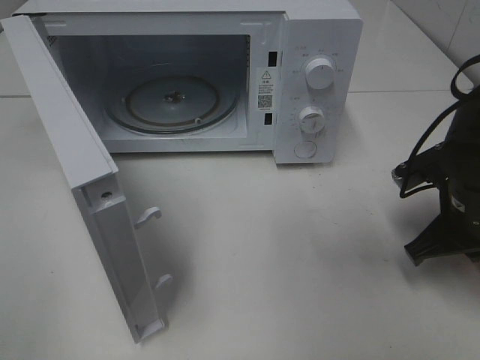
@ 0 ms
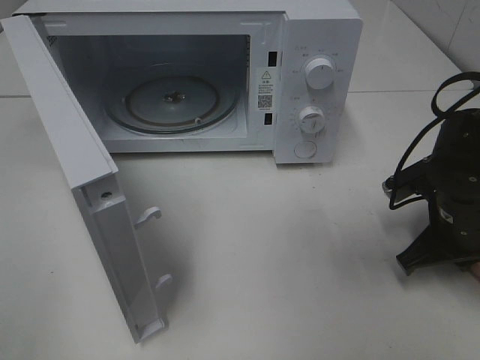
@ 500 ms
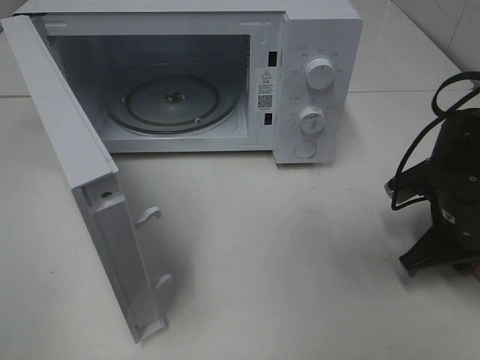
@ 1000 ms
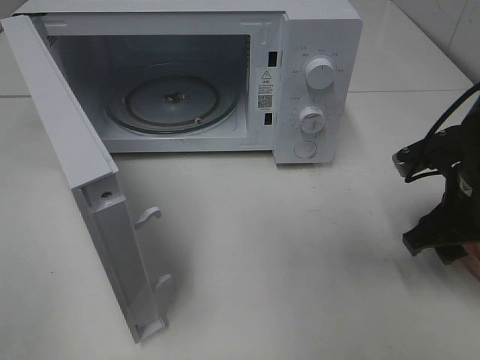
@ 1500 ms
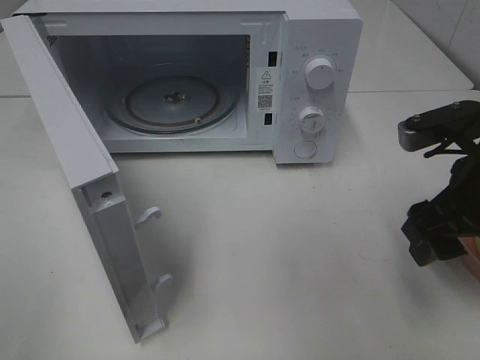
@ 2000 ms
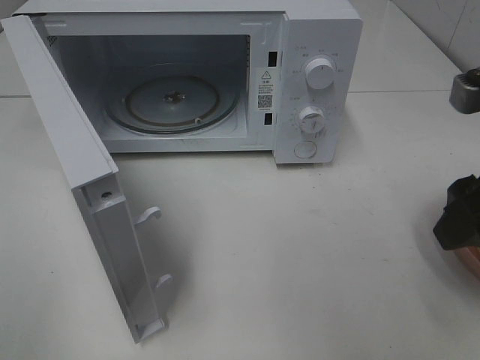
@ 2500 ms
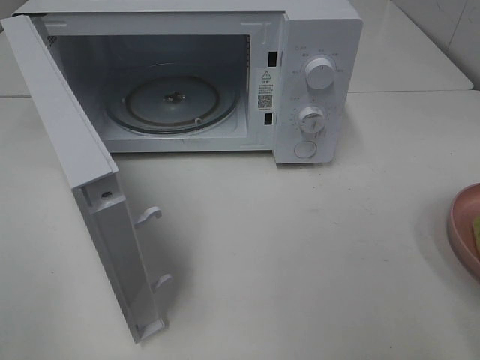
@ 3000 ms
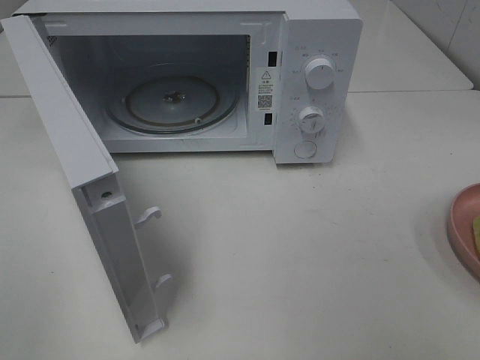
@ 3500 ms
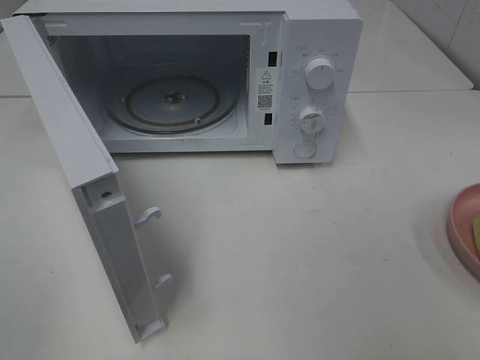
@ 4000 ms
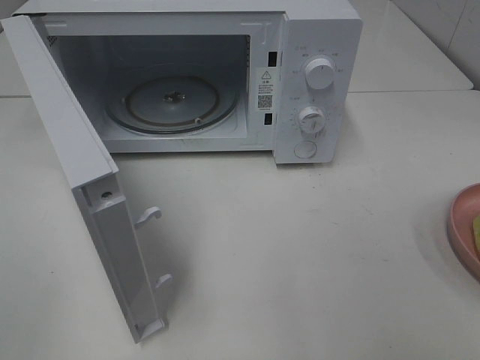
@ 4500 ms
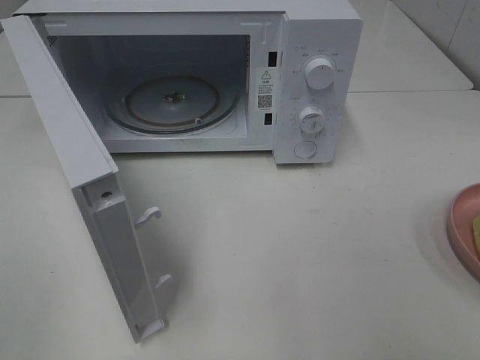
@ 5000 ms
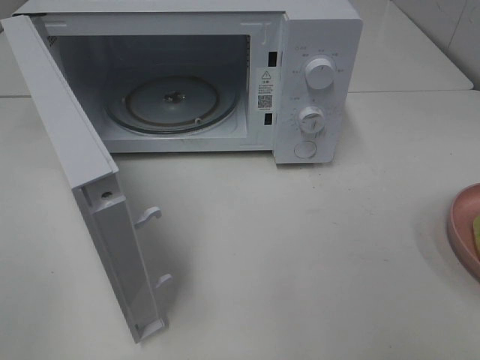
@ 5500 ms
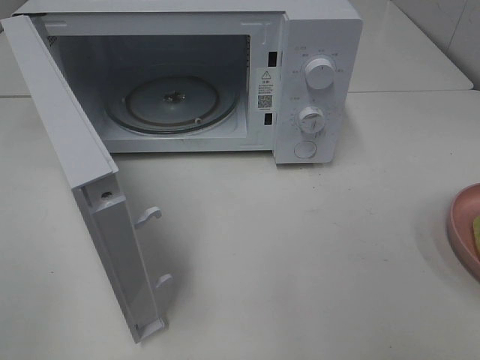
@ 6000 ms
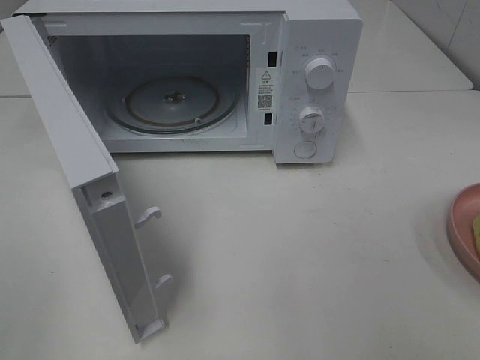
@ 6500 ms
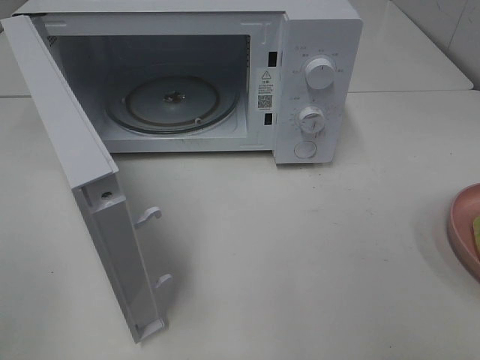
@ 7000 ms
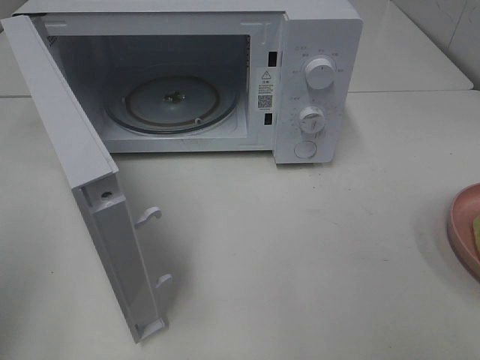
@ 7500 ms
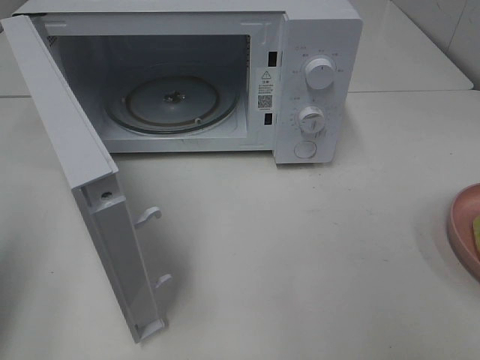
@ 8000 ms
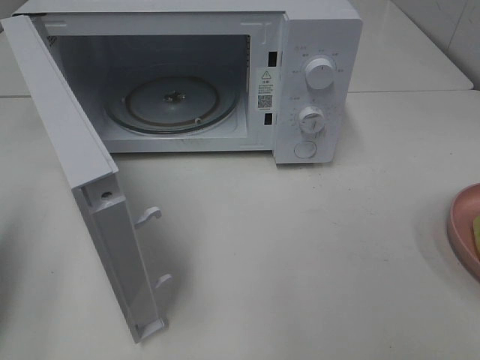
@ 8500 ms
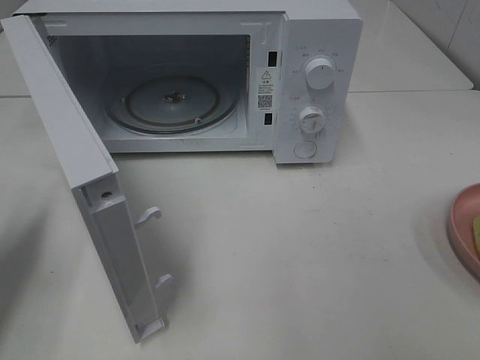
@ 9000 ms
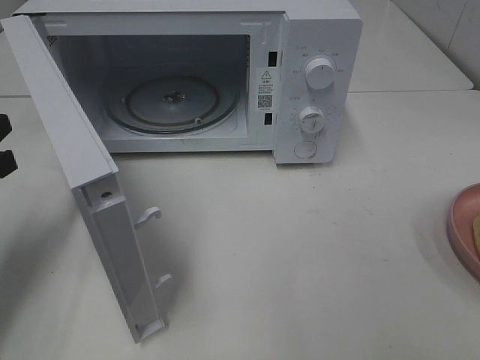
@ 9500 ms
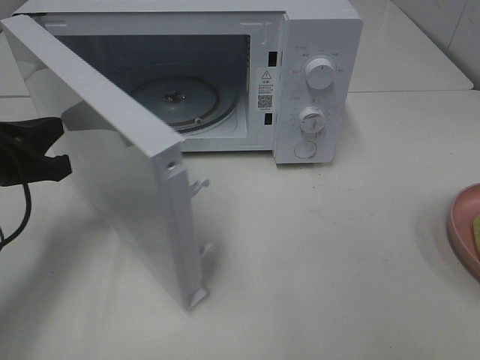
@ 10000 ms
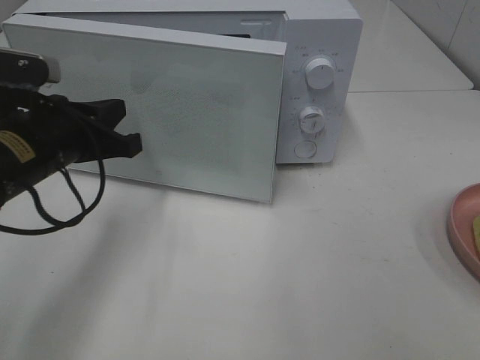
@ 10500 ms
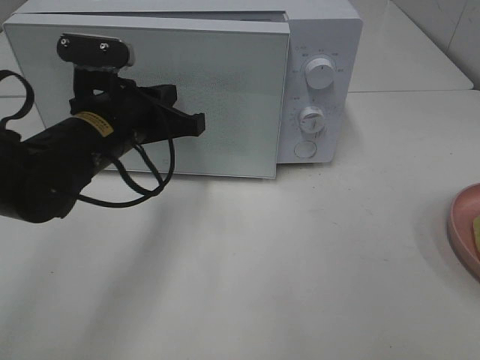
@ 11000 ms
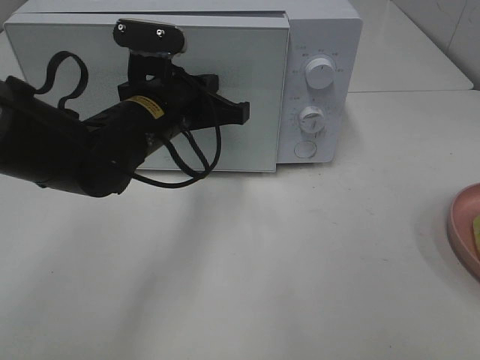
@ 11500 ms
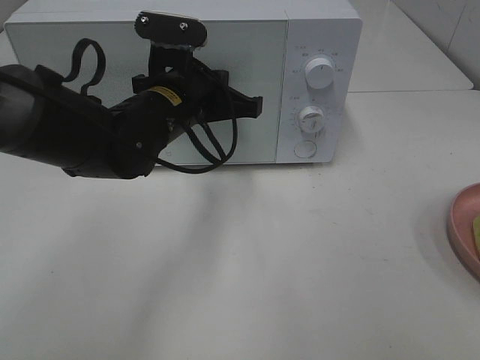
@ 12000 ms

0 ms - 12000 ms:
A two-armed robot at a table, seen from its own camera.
Task of the whole recording: Heat Sandwich.
Step, 0 ms - 2500 ms: Right hand: place the plate on the table.
0 ms - 2000 ms: The right gripper heads upward, covering approximately 10 cm, and opens its fingers.
2000 ms - 4000 ms: The right gripper is displaced backward and upward by roughly 25 cm.
6000 ms - 8000 ms: The left gripper goes roughly 15 cm forward, and closes its fingers.
8000 ms - 10000 ms: The left gripper is displaced forward, downward and to the right by roughly 20 cm.
10000 ms - 12000 ms: The left gripper heads to the right and forward, covering about 20 cm.

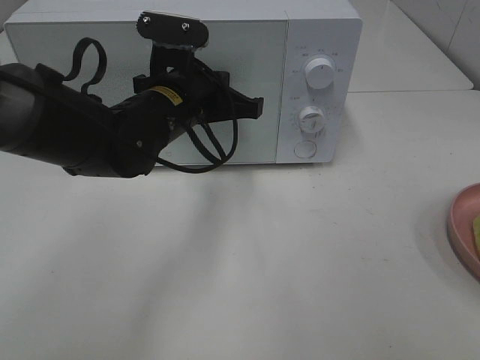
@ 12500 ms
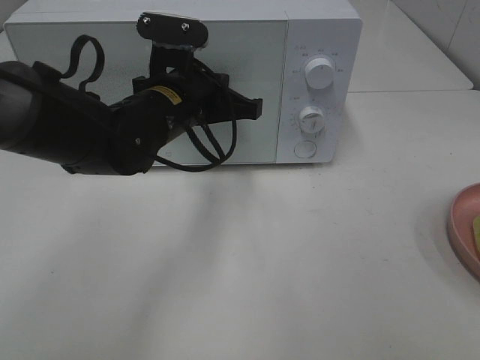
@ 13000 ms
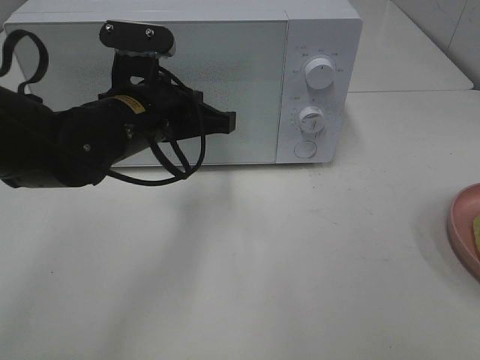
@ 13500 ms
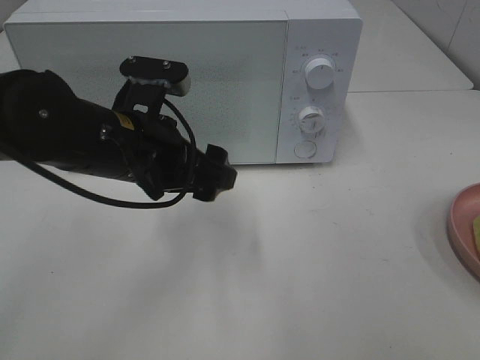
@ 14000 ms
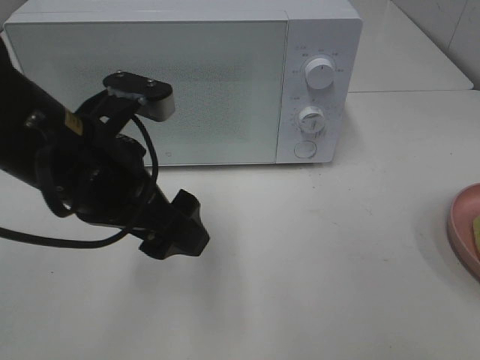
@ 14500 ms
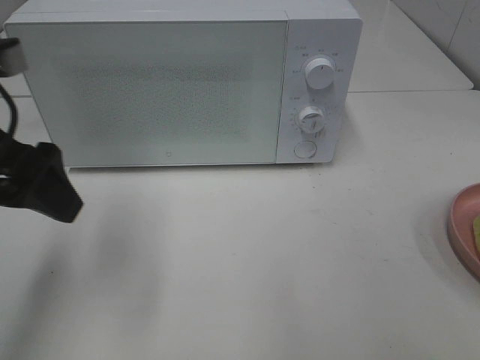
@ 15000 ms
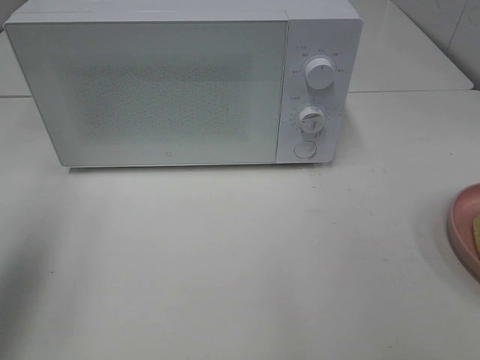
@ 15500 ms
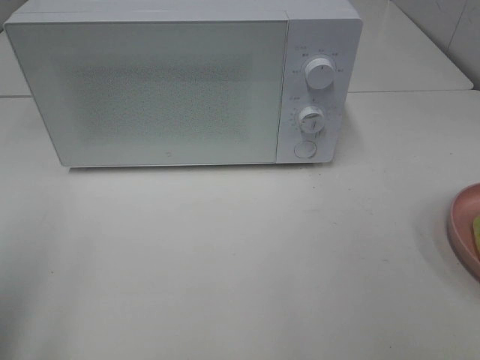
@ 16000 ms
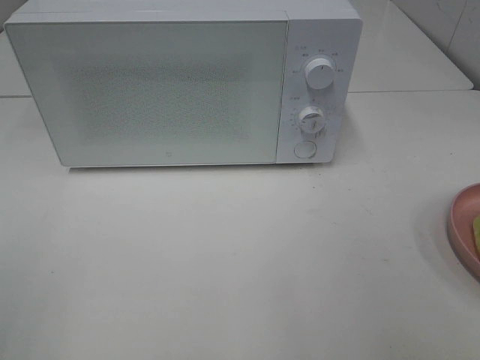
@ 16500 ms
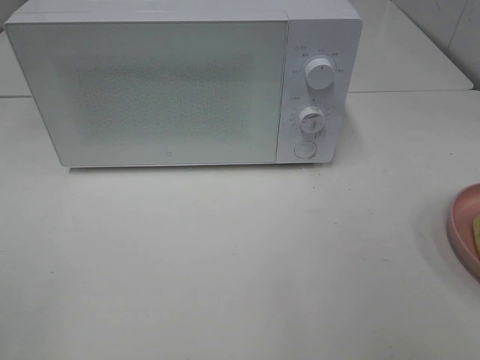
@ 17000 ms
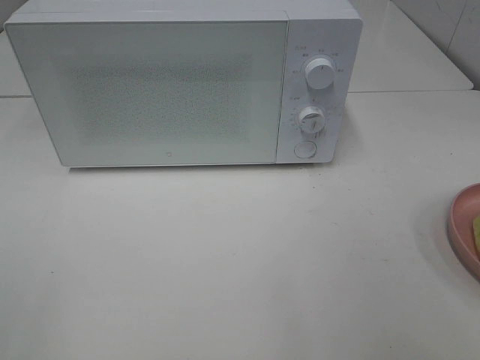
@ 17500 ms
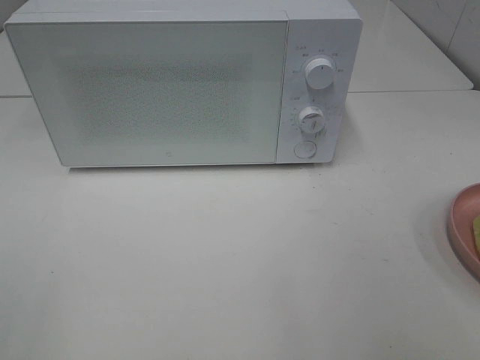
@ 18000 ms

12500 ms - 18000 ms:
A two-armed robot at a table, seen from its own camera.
Task of the whole recording: Heat Sandwich.
12500 ms - 14500 ms: The left gripper heads backward, to the left and upward, covering about 15 cm, and opens up.
14500 ms - 16000 ms: The left gripper is displaced to the left and backward by some 20 cm.
16000 ms - 18000 ms: The left gripper shifts roughly 10 cm backward.
